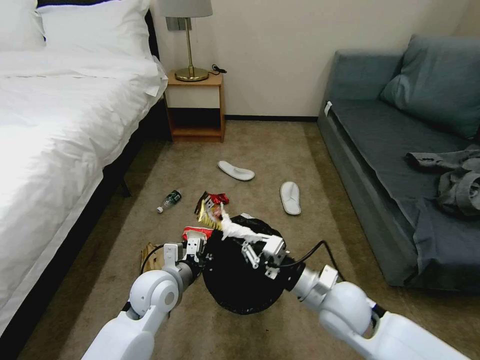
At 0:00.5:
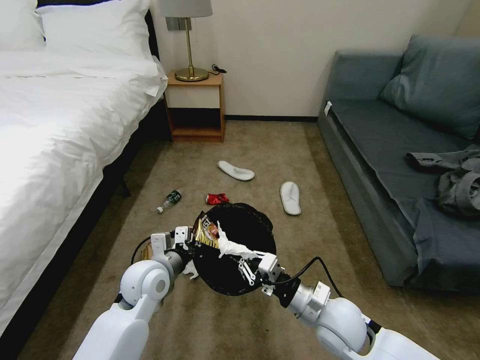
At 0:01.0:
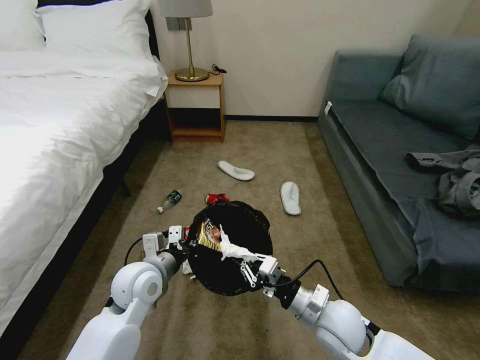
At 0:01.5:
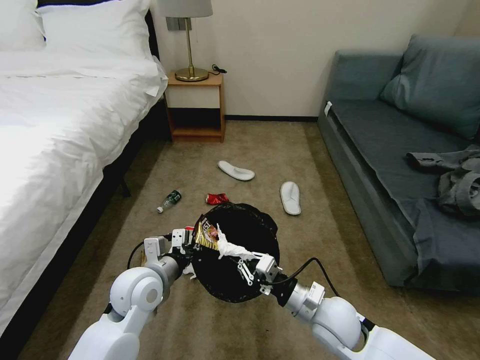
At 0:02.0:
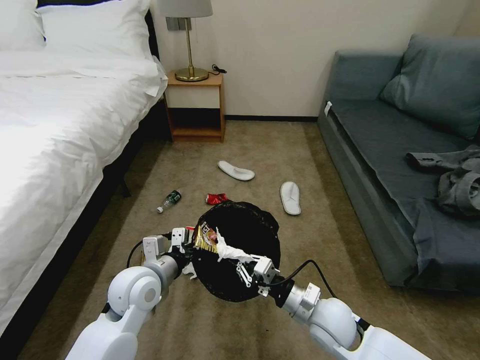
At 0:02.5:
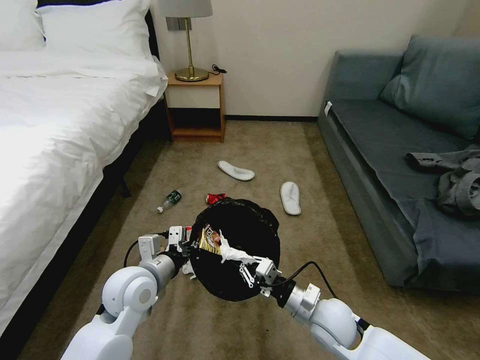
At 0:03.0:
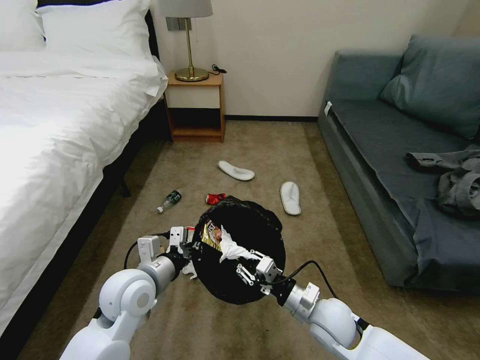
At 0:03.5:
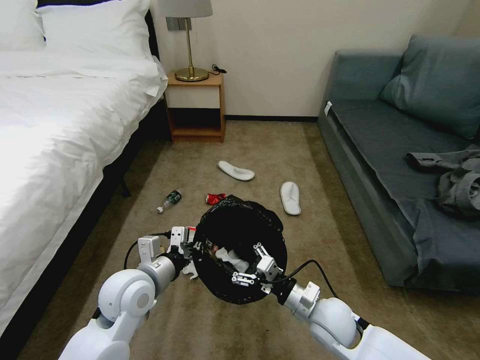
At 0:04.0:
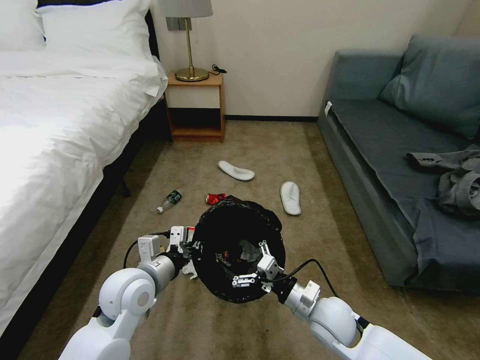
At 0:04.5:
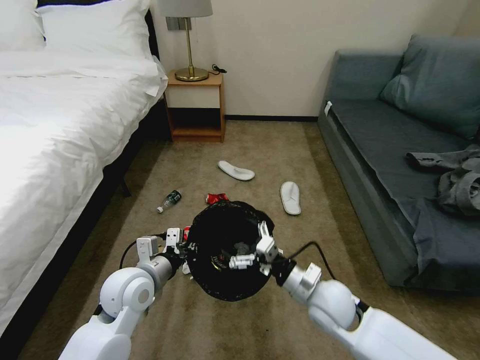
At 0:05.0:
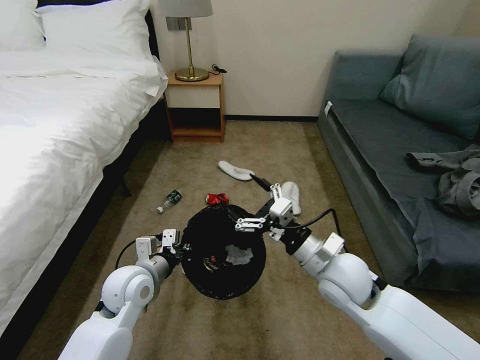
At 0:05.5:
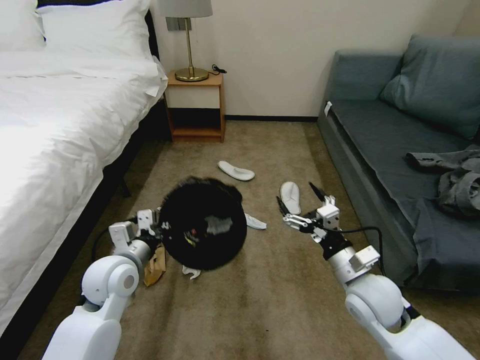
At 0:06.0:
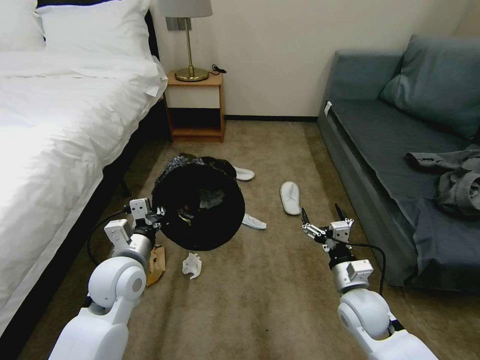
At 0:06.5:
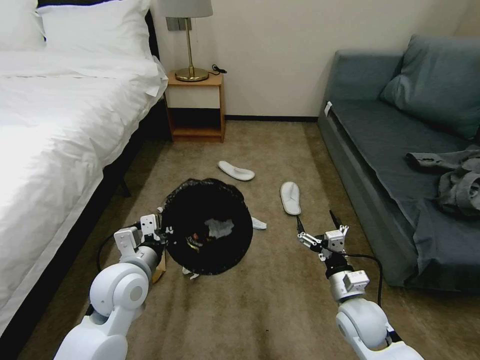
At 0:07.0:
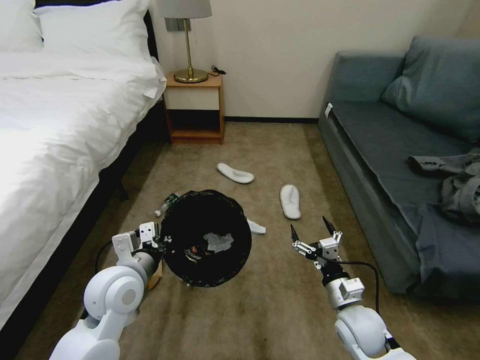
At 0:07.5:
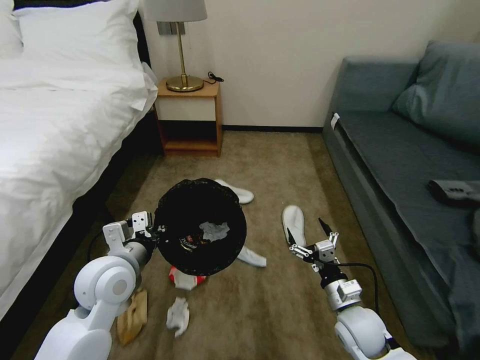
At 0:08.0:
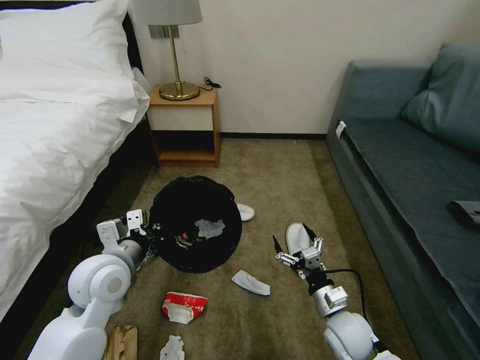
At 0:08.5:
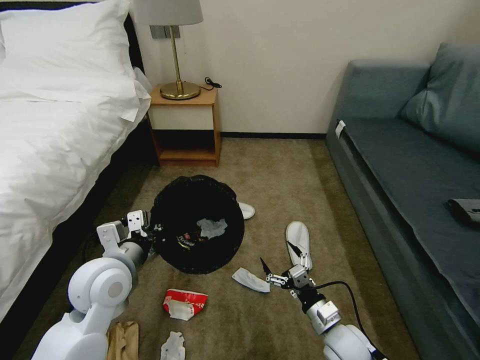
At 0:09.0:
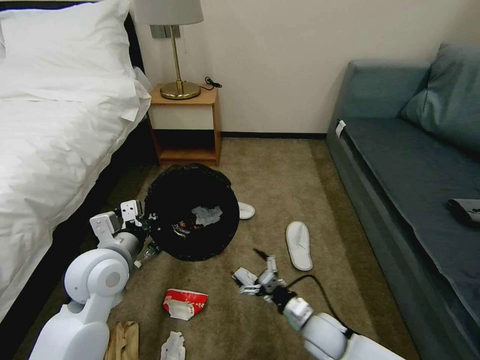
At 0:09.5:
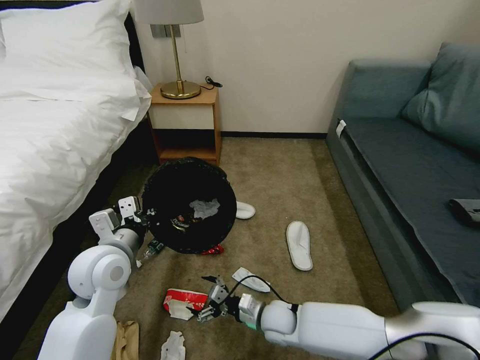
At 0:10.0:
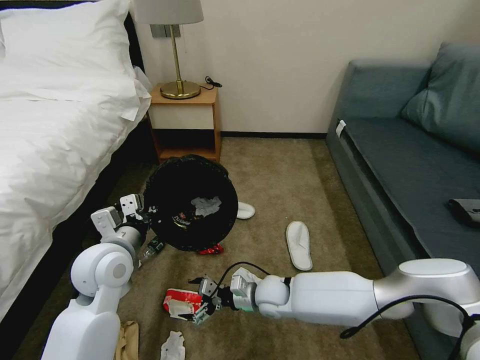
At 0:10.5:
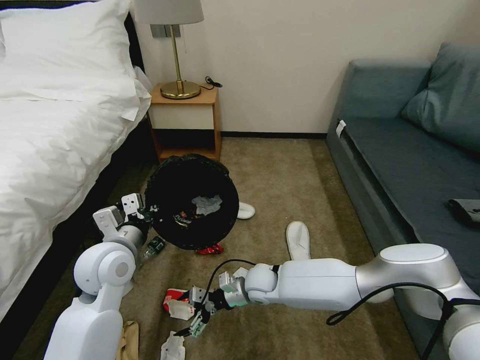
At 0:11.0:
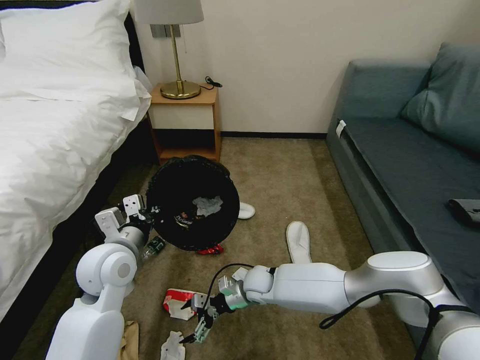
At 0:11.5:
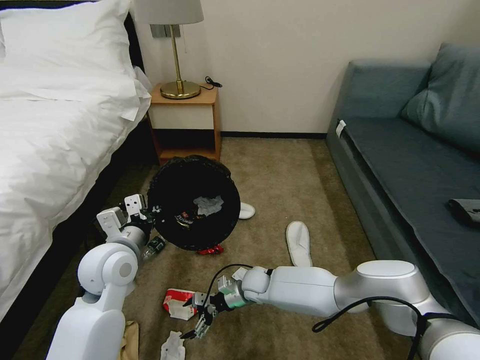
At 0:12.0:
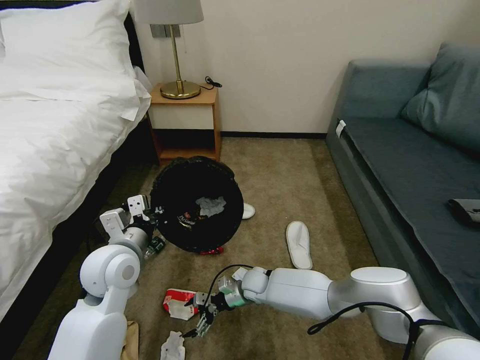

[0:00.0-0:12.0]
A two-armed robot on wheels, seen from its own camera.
Task of the whole recording: Pick up the trash bin, then pick up the garbage on the floor and place it into the trash bin.
0:00.0 to 0:02.0: The right gripper is displaced downward by approximately 5 cm.
0:02.0 to 0:04.0: The right gripper opens its fingers.
0:04.0 to 0:06.0: The right gripper shifts some 5 cm to the right, and travels upward and back again, roughly 10 cm each way.
0:06.0 to 0:08.0: The right gripper changes place by about 5 cm.
0:08.0 to 0:10.0: The right gripper is displaced to the left and forward by approximately 20 cm.
0:10.0 to 0:12.0: The right gripper heads downward and forward, covering approximately 10 cm.

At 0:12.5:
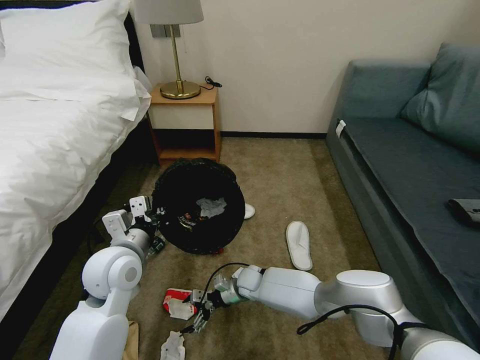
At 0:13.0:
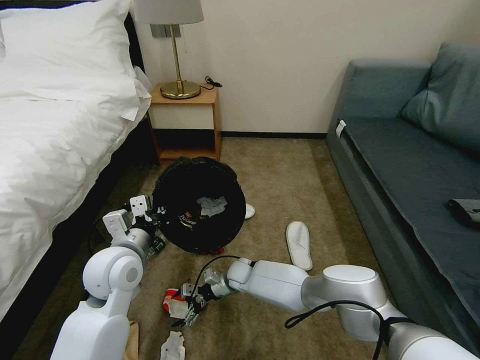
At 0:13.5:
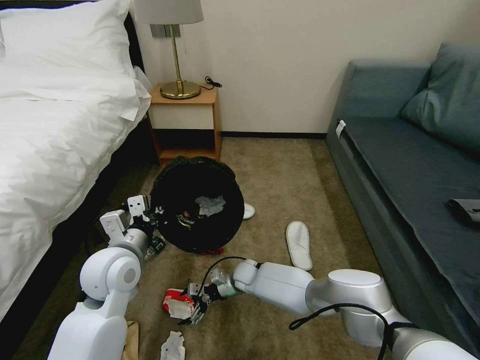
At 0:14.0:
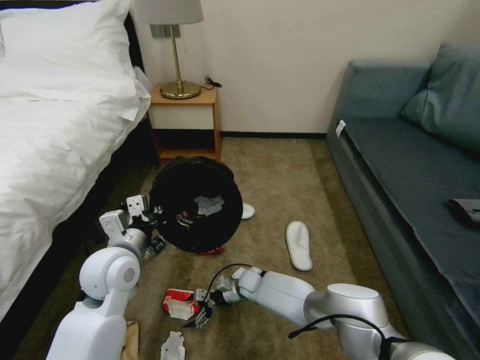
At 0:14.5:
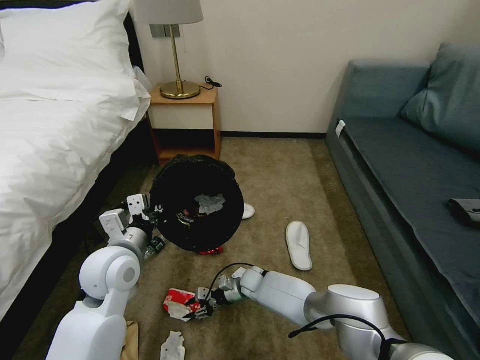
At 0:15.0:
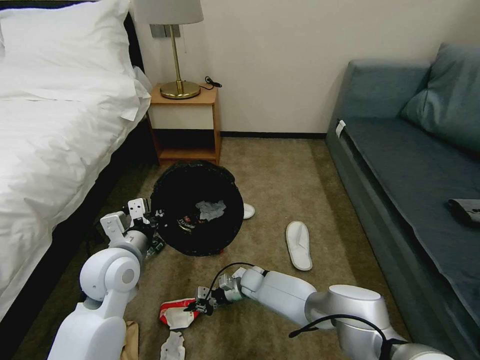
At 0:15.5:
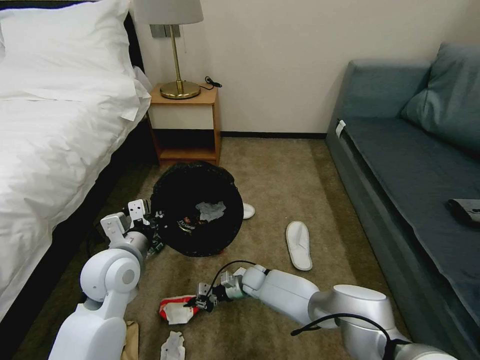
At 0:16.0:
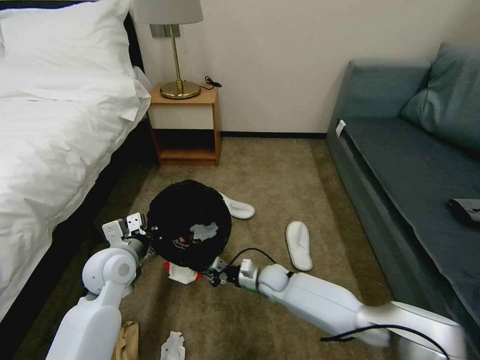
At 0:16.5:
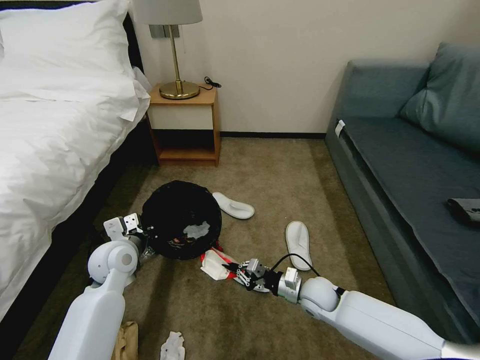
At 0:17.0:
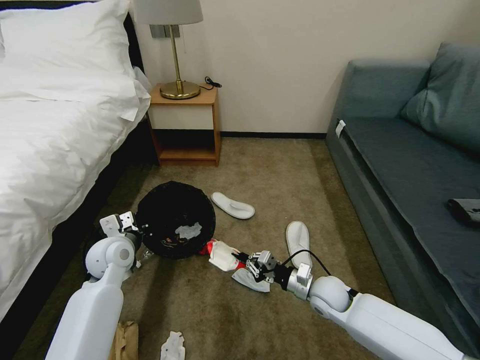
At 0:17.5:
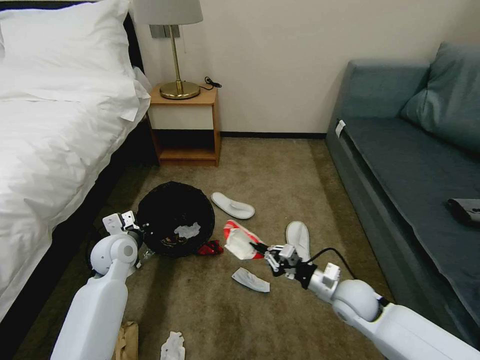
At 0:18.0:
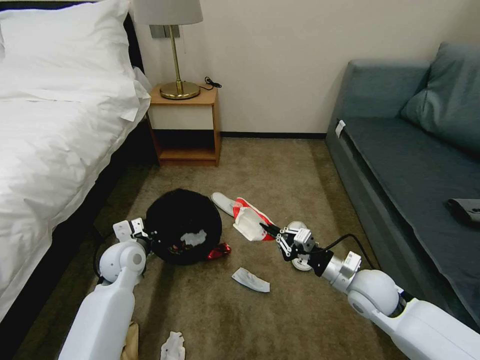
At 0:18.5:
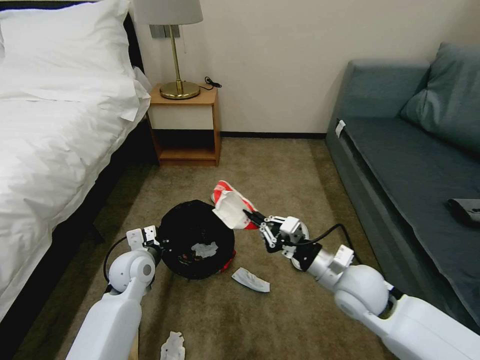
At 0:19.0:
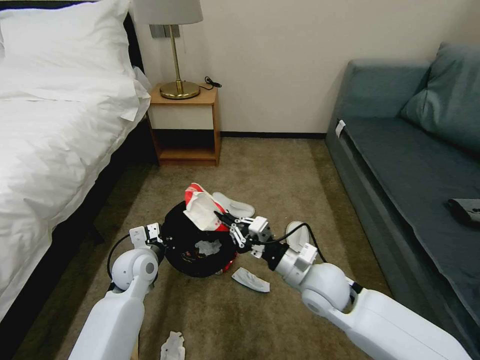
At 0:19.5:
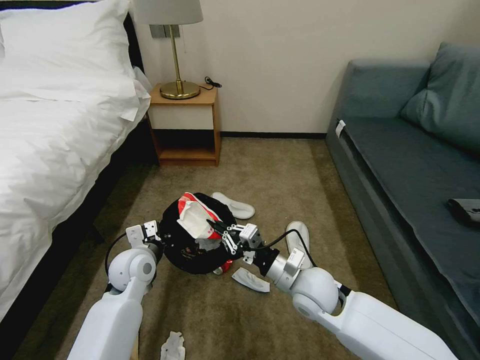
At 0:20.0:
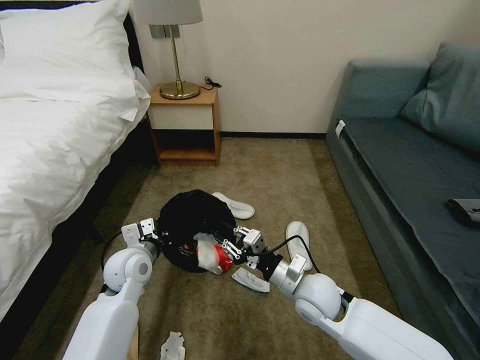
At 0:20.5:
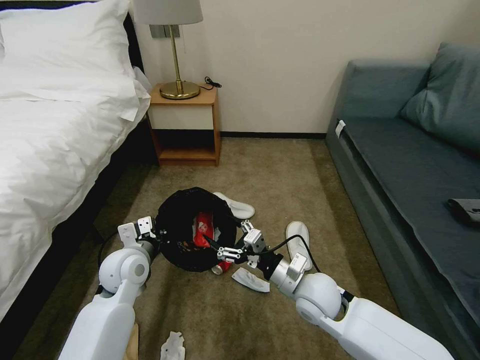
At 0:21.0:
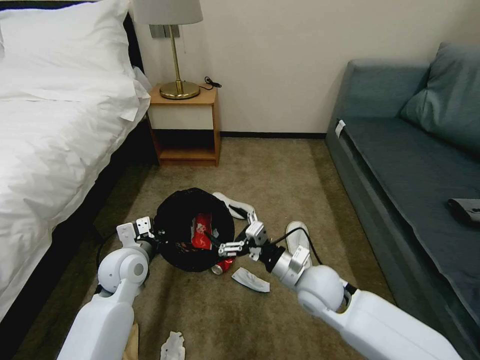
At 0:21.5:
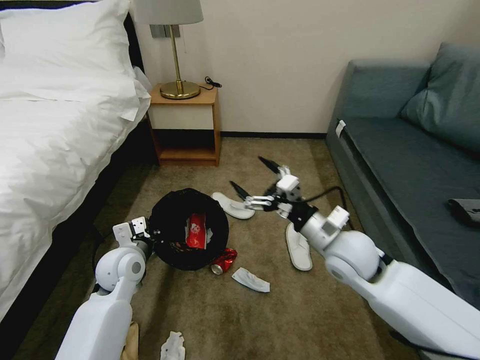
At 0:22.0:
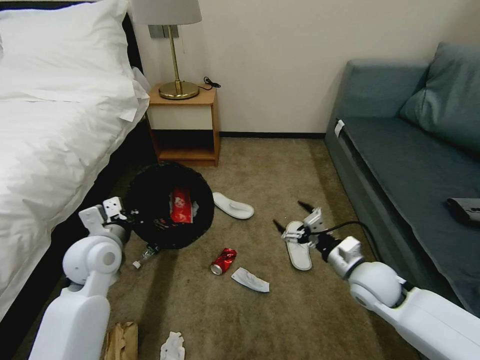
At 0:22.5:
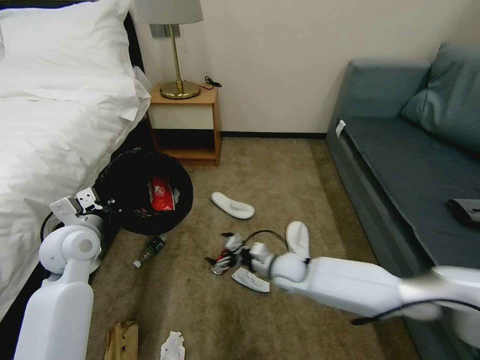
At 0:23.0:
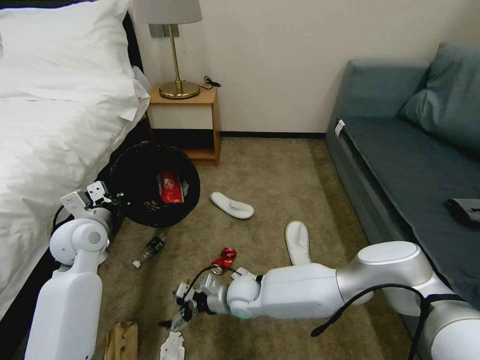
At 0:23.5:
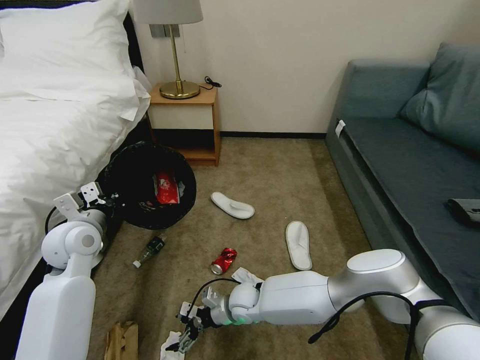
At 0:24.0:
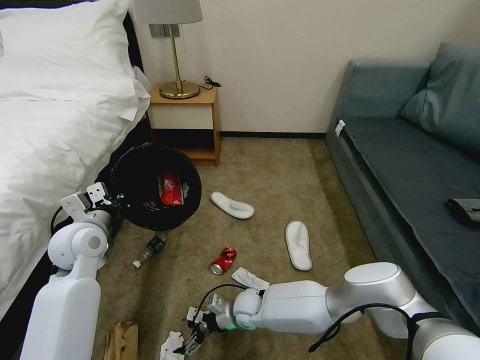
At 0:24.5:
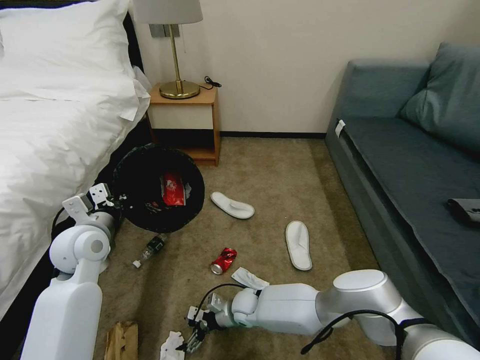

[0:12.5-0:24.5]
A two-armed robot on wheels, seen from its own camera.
Task of the whole recording: Pick up the trash bin, then pick up the garbage on the floor and place it into the trash bin.
0:12.5 to 0:14.5: The right gripper closes its fingers.
0:14.5 to 0:16.5: The right gripper is displaced to the right, upward and backward by about 20 cm, and closes up. Meanwhile the left gripper heads downward and forward, covering some 10 cm.
0:16.5 to 0:18.5: The right gripper goes roughly 15 cm upward.
0:18.5 to 0:20.5: The right gripper goes approximately 10 cm to the left, and opens up.
0:20.5 to 0:22.5: The left gripper goes roughly 10 cm to the left and upward. The right gripper moves forward and downward, about 10 cm.
0:22.5 to 0:24.5: The right gripper is displaced downward and to the left by about 15 cm.

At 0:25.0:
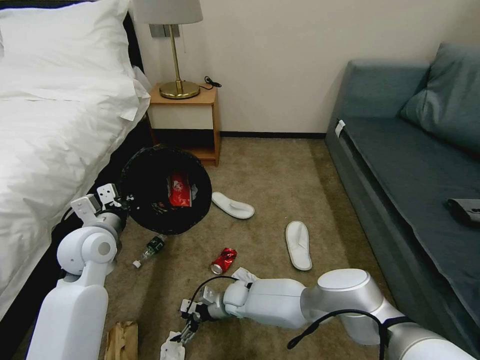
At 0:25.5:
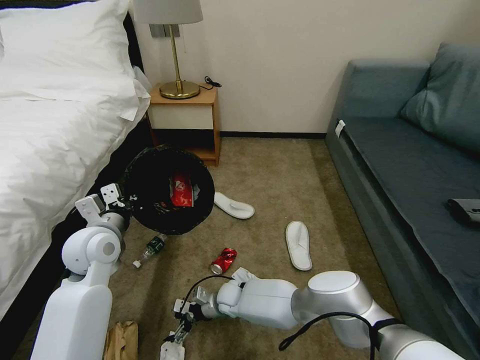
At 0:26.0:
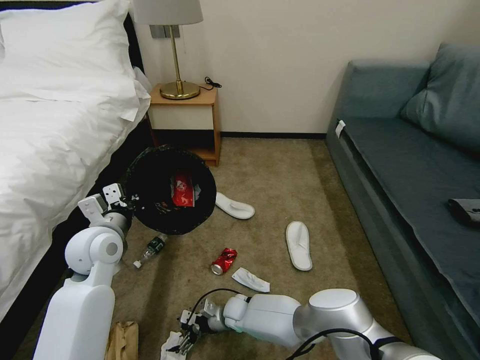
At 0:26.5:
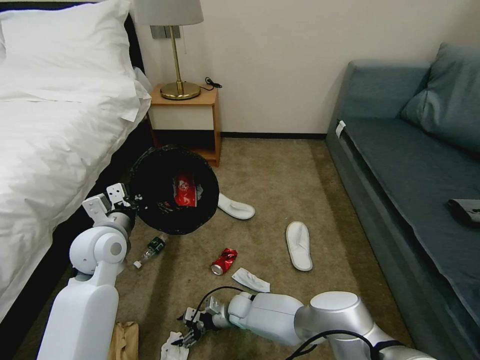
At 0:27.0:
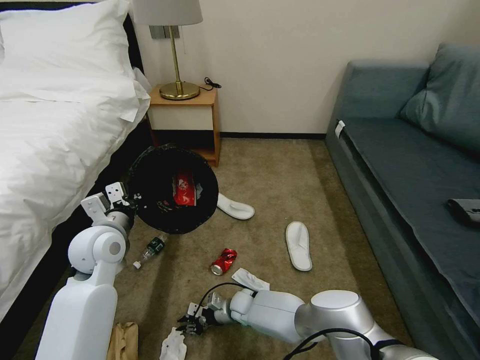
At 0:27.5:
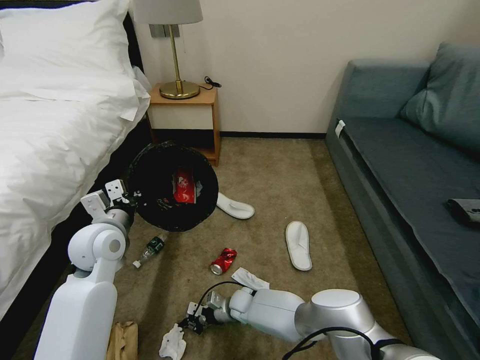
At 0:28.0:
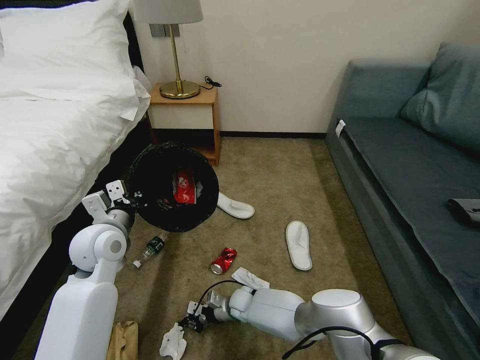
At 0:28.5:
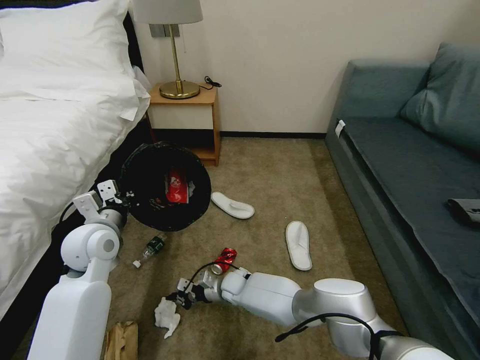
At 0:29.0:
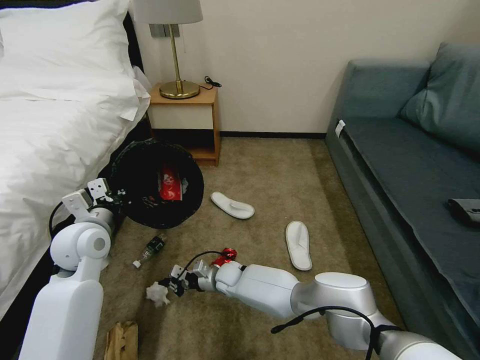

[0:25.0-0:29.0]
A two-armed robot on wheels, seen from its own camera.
Task of the whole recording: Pick up the trash bin, then pick up the garbage on the floor and place it into the trash bin.
0:25.0 to 0:27.0: The right gripper shifts by some 5 cm, and closes its fingers.
0:27.0 to 0:29.0: The right gripper travels upward and forward by some 10 cm.
